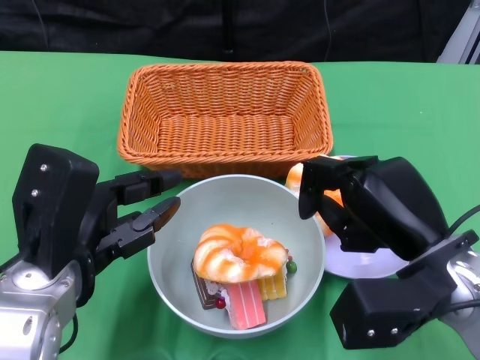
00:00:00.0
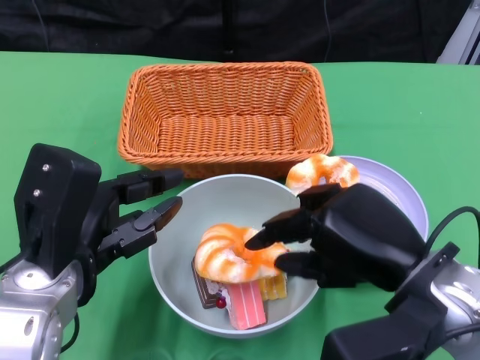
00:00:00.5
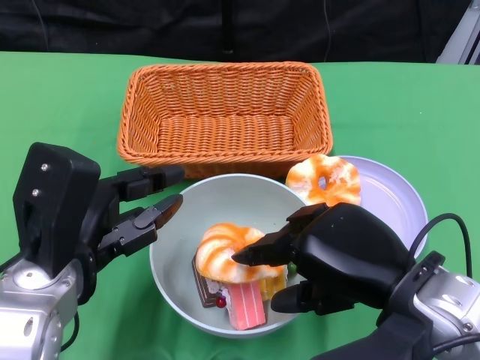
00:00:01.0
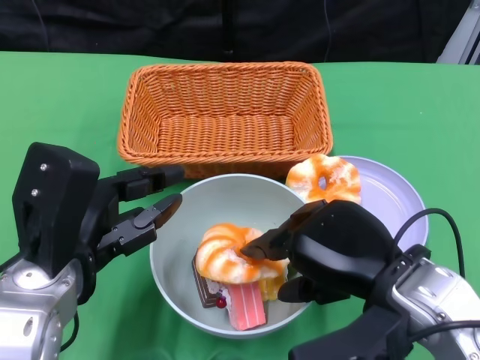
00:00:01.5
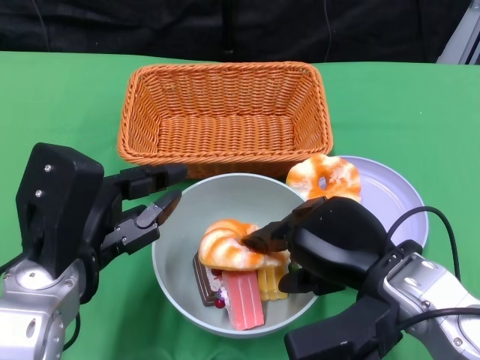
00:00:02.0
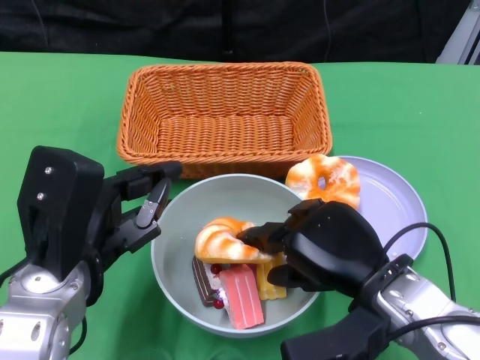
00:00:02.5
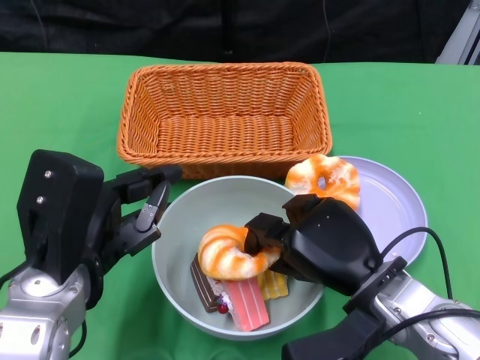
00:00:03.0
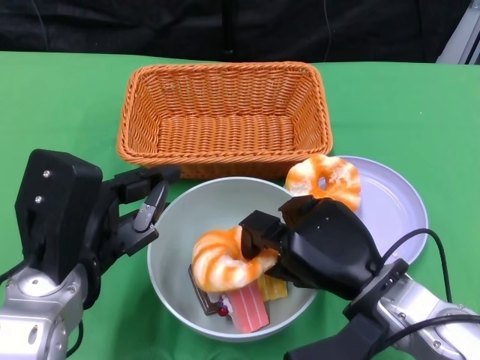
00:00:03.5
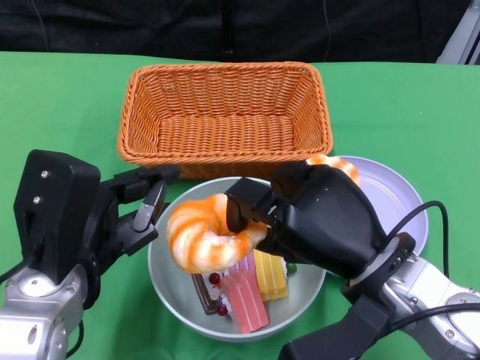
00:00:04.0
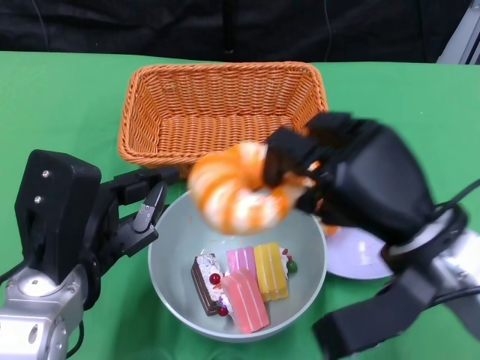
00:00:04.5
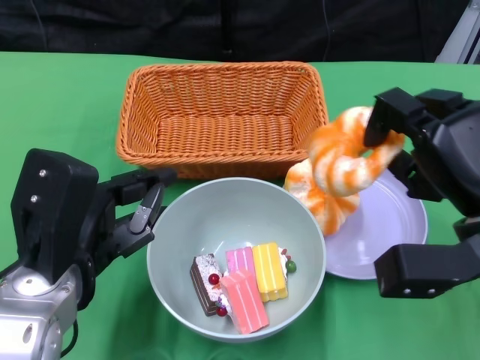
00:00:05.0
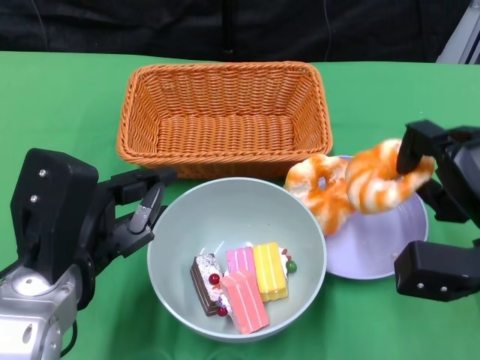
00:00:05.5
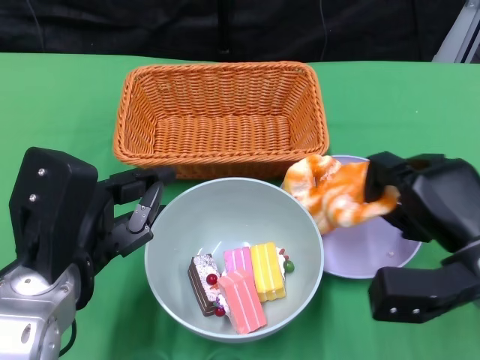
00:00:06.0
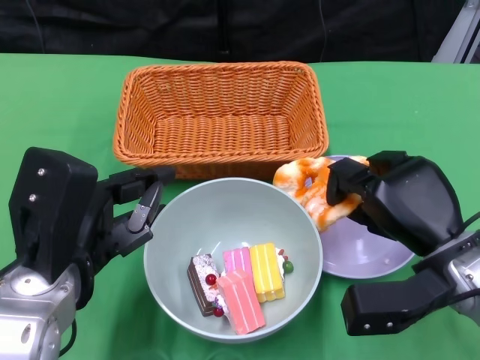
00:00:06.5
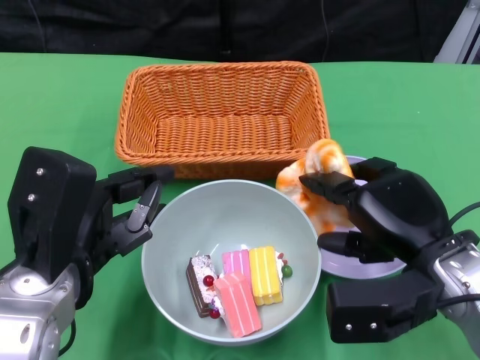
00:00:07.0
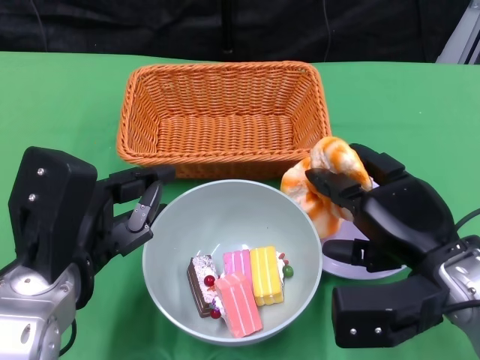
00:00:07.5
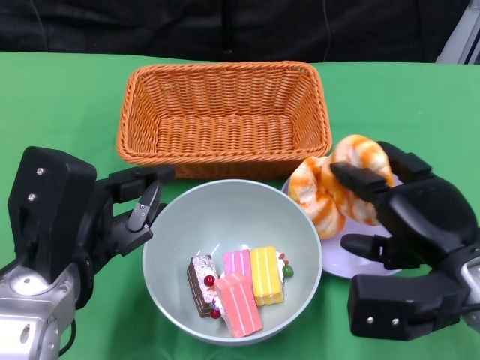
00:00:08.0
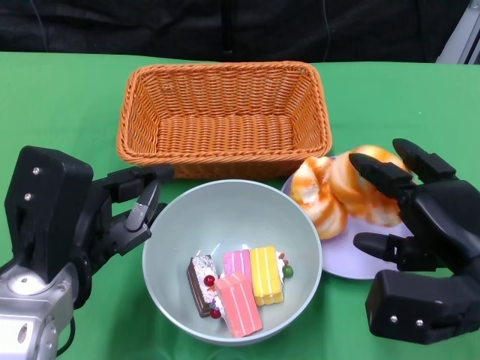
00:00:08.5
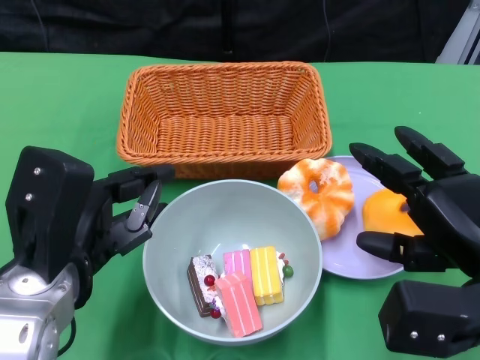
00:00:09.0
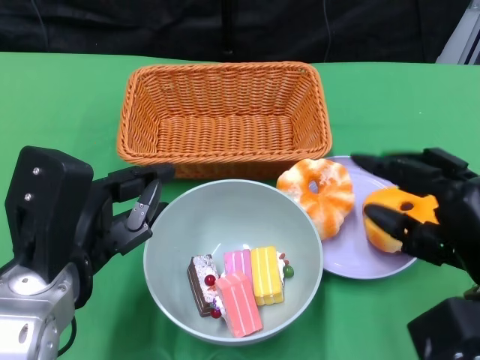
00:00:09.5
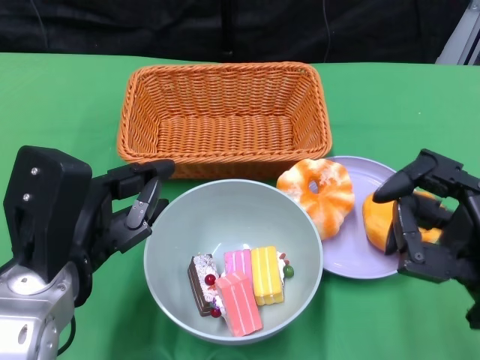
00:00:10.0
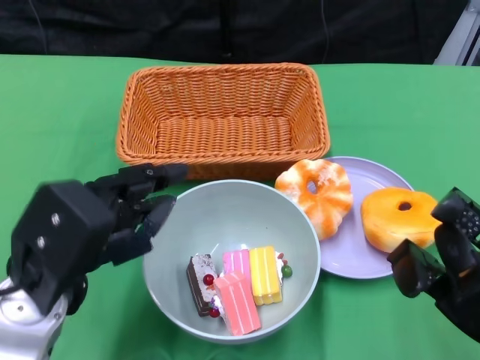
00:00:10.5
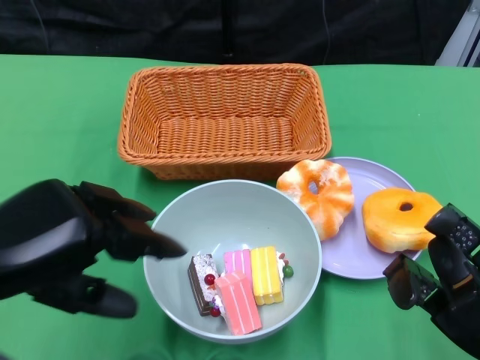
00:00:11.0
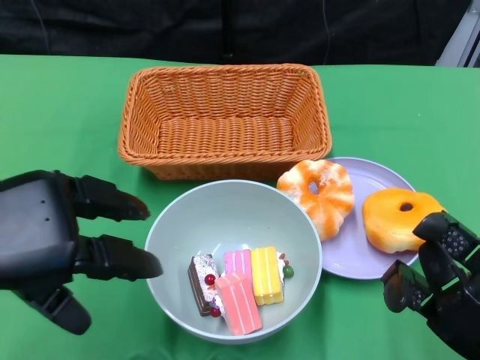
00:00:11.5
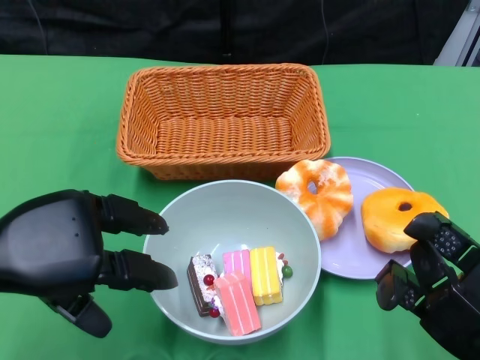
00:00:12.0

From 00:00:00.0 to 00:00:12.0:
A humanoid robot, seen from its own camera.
Step, from 00:00:00.0 to 00:00:09.0: Pick up the bread with the right gripper and place it on the plate.
From 00:00:04.0 to 00:00:06.0: The right hand shifts about 10 cm to the right.
From 00:00:06.0 to 00:00:08.0: The hands move only a little.
From 00:00:08.0 to 00:00:10.0: The right hand is displaced backward by approximately 5 cm.
From 00:00:10.0 to 00:00:12.0: The left hand moves to the left, about 5 cm.

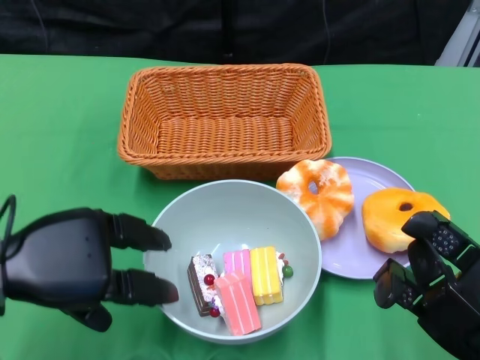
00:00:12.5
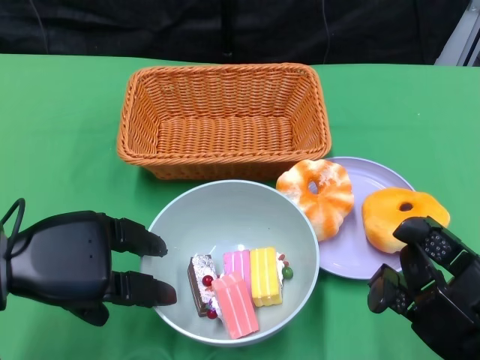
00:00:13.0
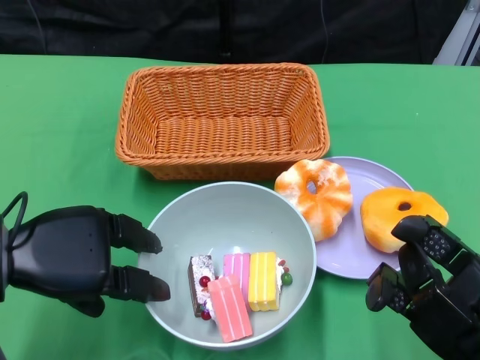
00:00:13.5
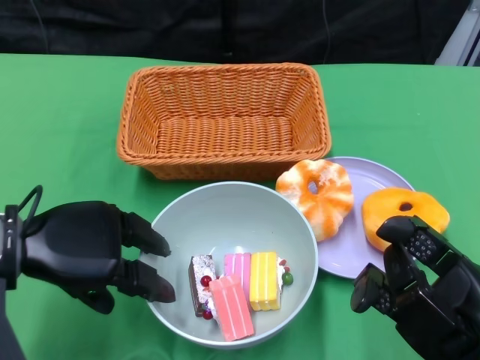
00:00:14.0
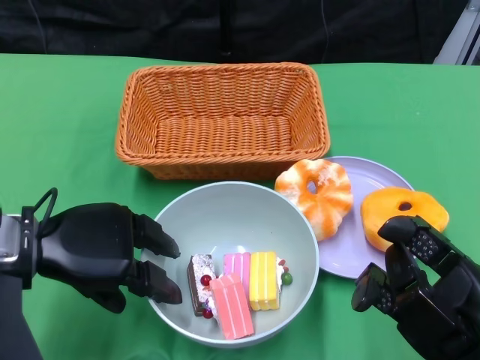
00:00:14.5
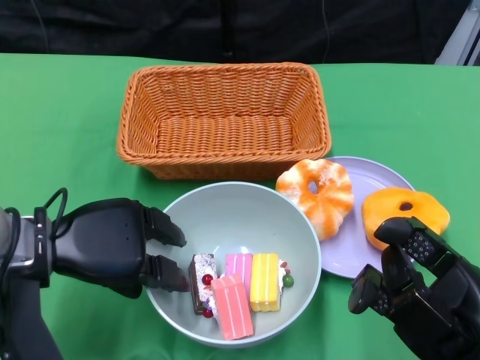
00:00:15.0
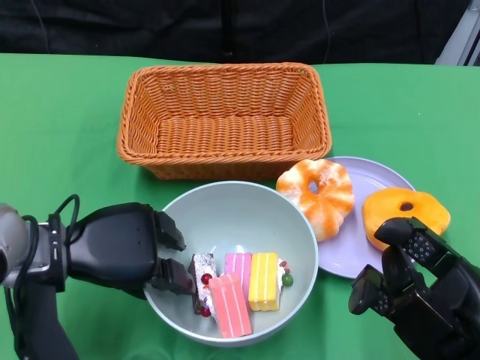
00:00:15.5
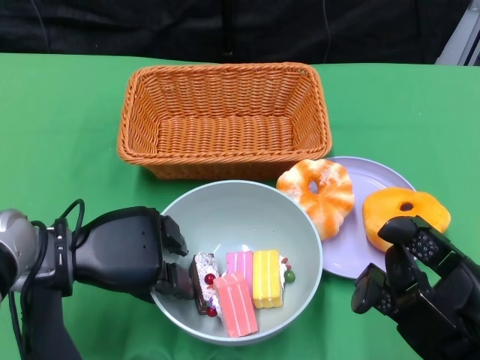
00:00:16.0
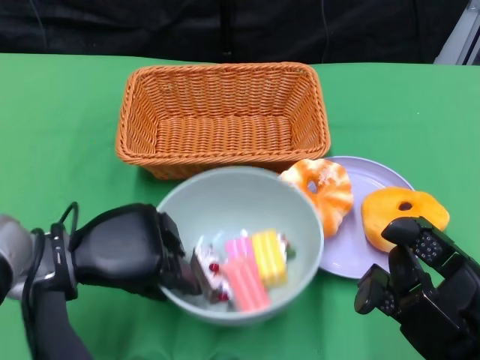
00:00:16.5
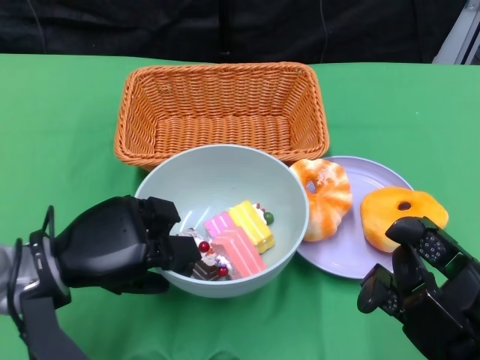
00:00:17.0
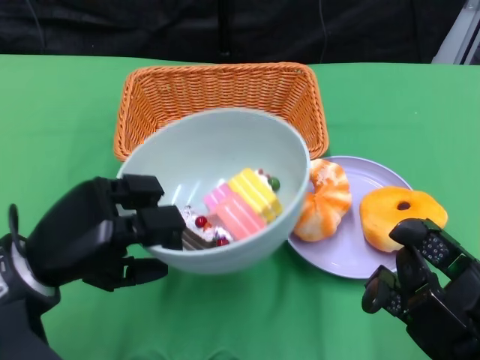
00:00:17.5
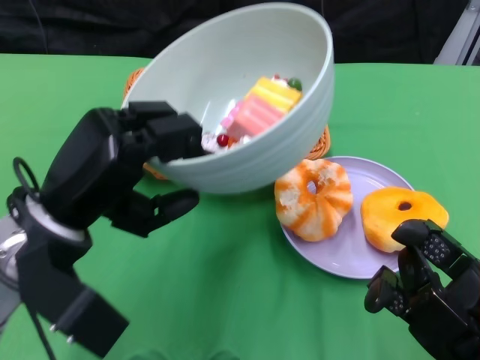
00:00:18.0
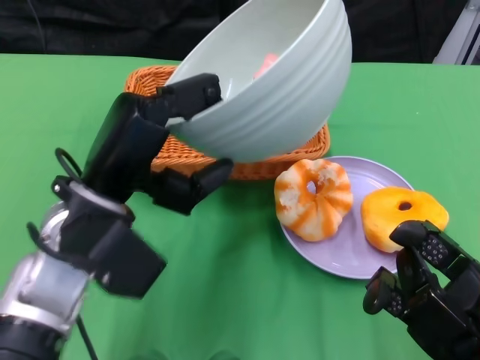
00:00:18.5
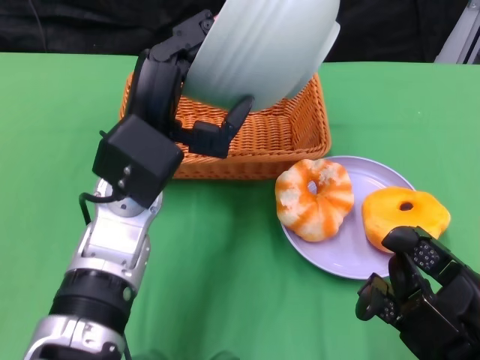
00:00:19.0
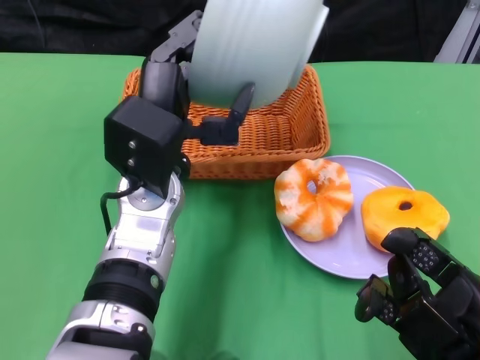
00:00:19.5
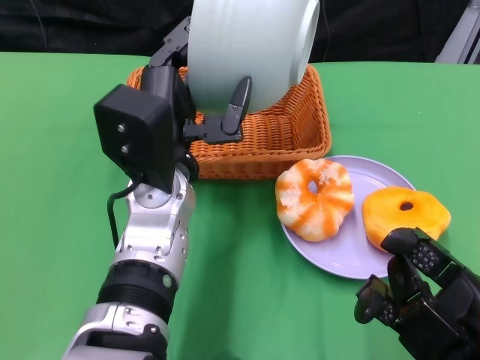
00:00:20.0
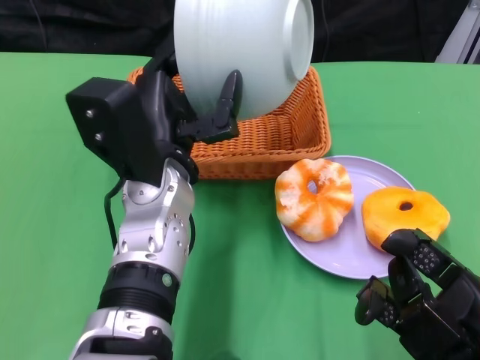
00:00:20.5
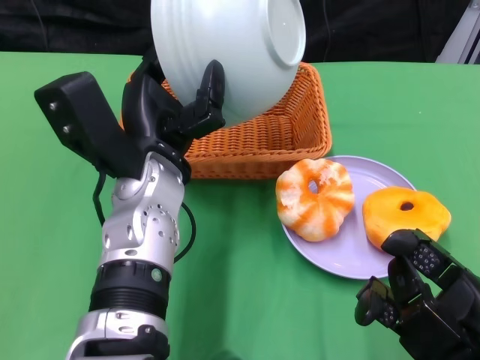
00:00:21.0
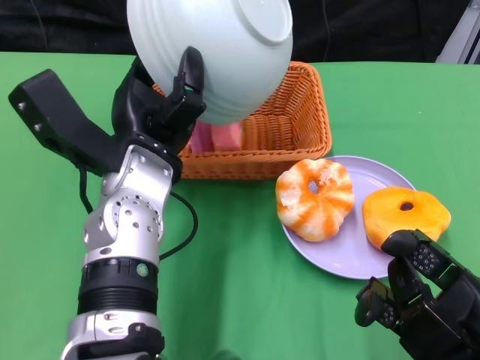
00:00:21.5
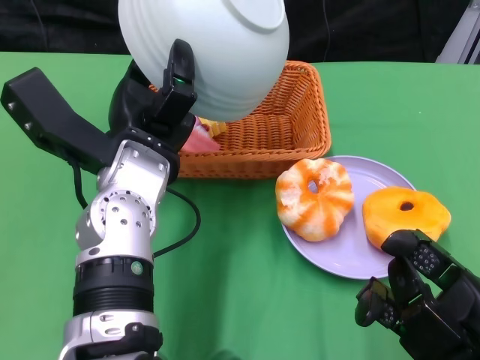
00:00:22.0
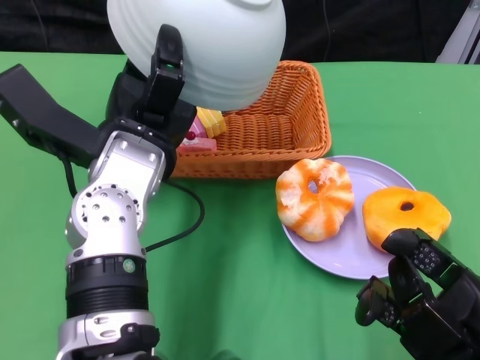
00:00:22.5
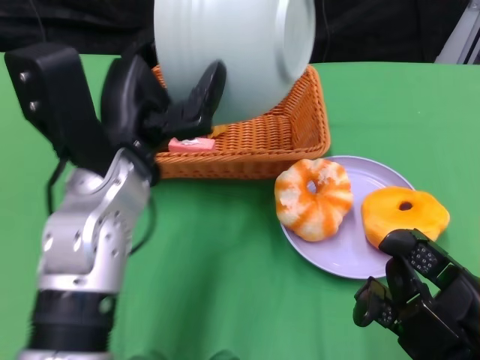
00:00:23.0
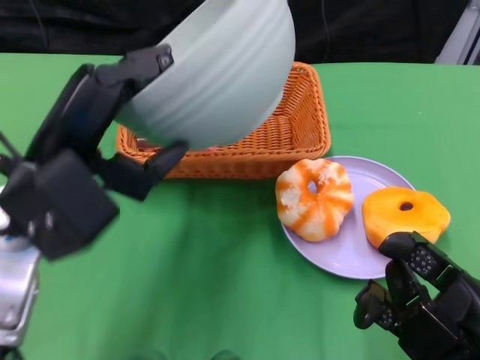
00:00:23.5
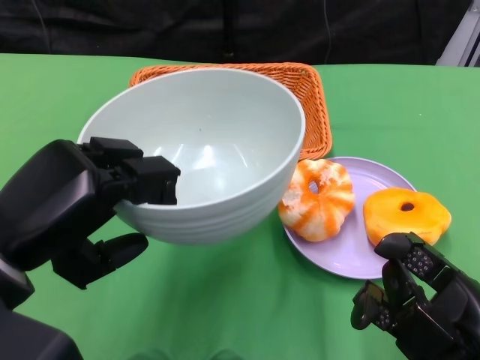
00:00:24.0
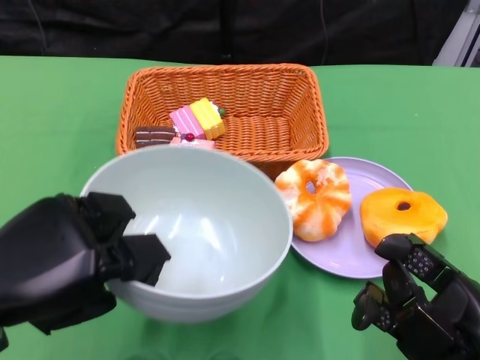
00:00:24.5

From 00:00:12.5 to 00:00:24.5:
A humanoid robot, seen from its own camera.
Step, from 00:00:12.5 to 00:00:16.0: Grasp the bowl with the left gripper.
Step, from 00:00:16.5 to 00:00:22.0: Pour the cake into the basket with the left gripper.
From 00:00:12.5 to 00:00:14.5: The hands stay close to where they were, moving slightly.
From 00:00:14.5 to 00:00:16.5: The hands stay close to where they were, moving slightly.
From 00:00:16.5 to 00:00:18.5: The left hand shifts approximately 10 cm upward and to the right.
From 00:00:18.5 to 00:00:20.5: The left hand travels to the right by about 5 cm.
From 00:00:22.5 to 00:00:24.5: The left hand moves to the left and backward, approximately 20 cm.
